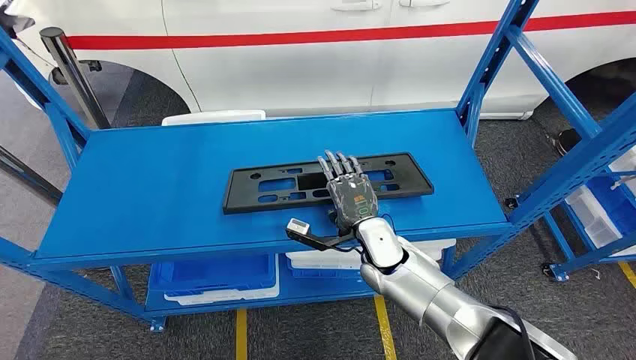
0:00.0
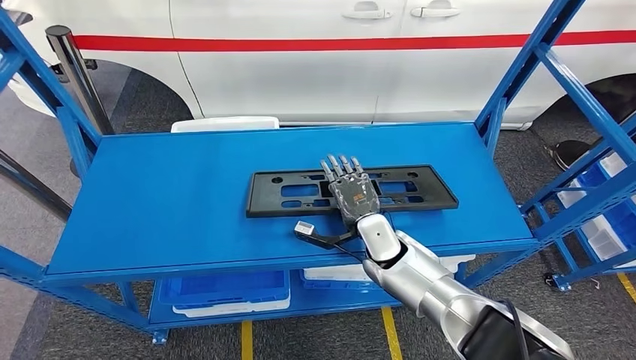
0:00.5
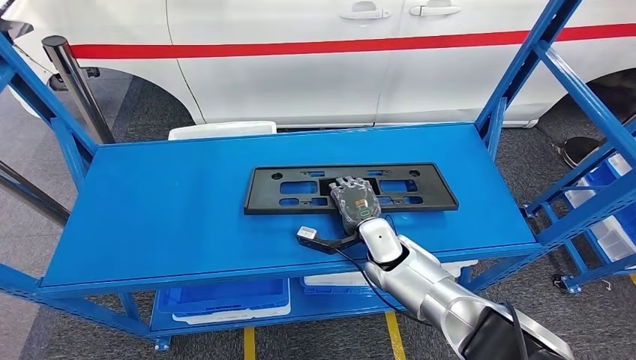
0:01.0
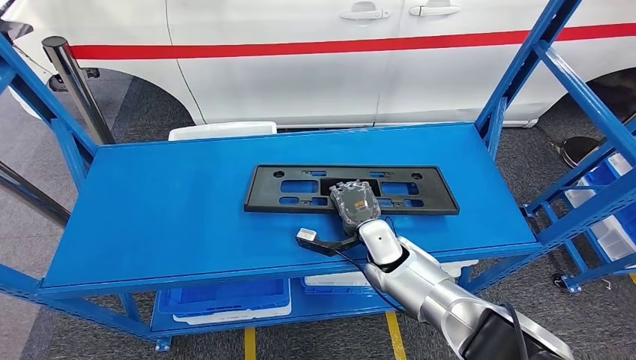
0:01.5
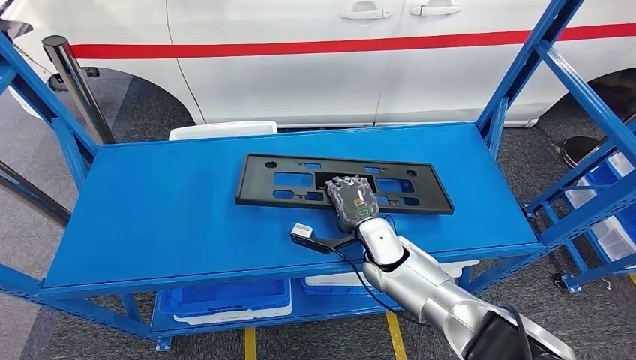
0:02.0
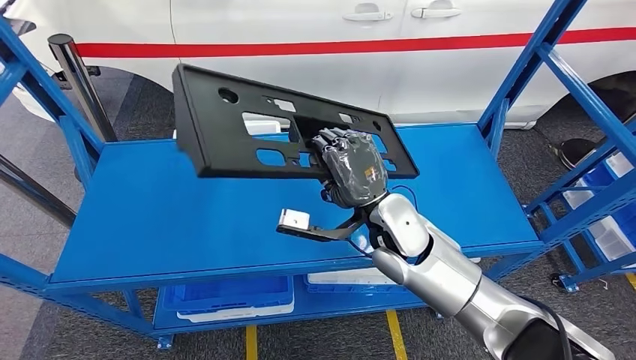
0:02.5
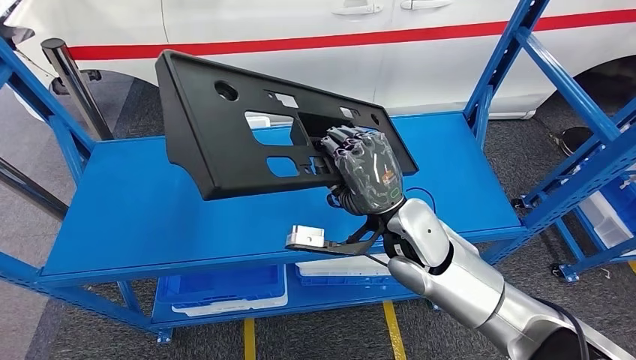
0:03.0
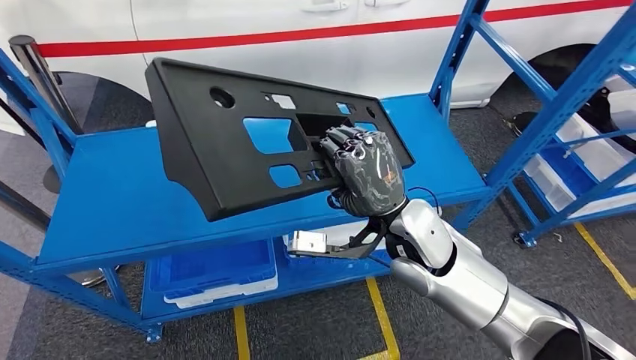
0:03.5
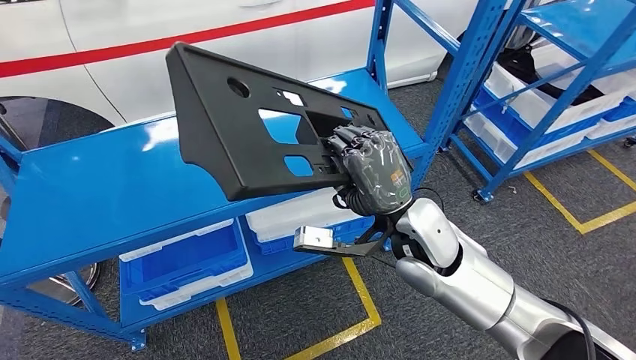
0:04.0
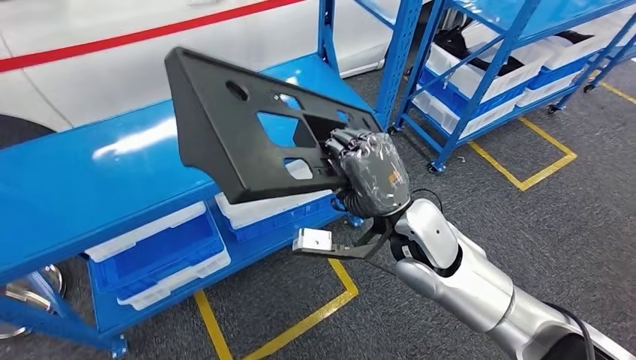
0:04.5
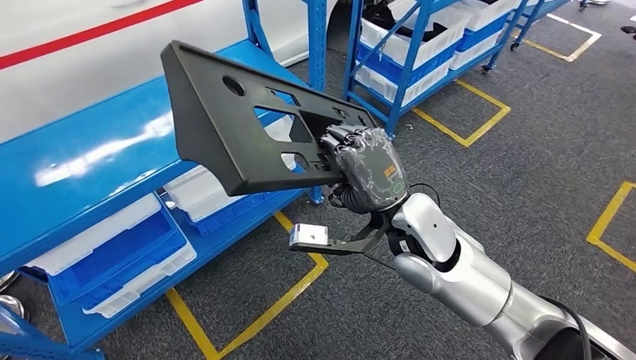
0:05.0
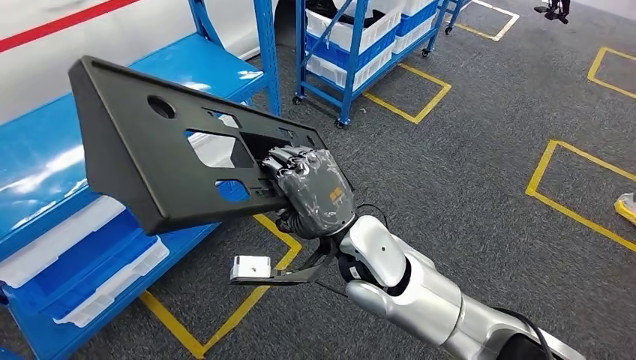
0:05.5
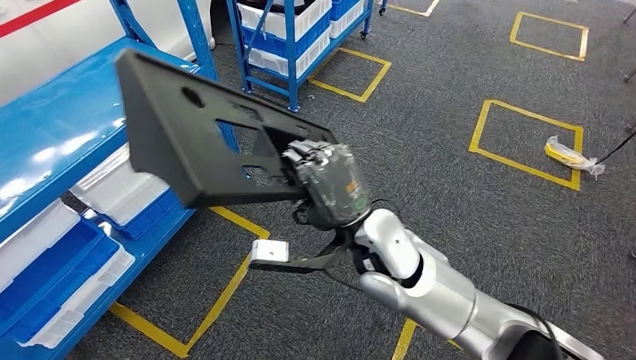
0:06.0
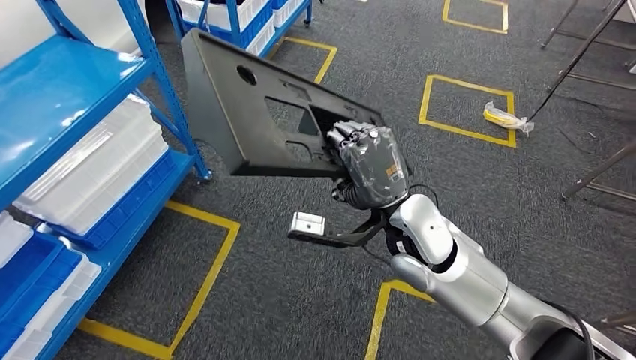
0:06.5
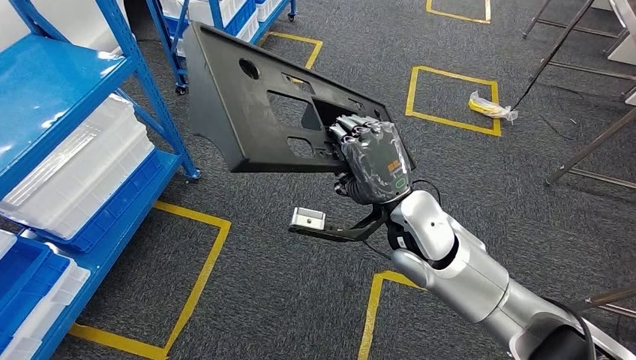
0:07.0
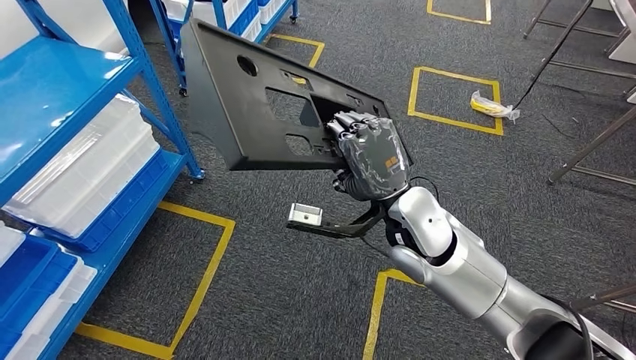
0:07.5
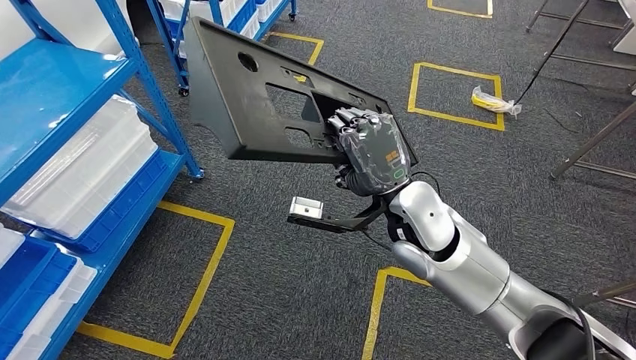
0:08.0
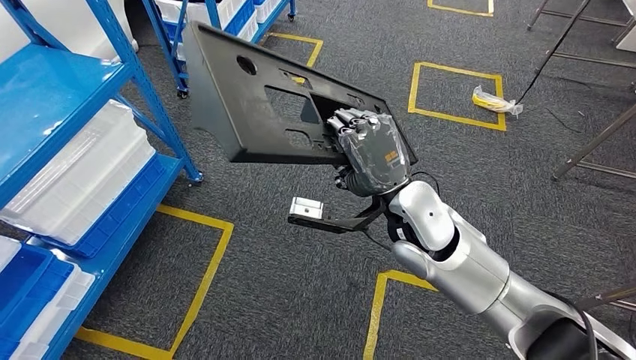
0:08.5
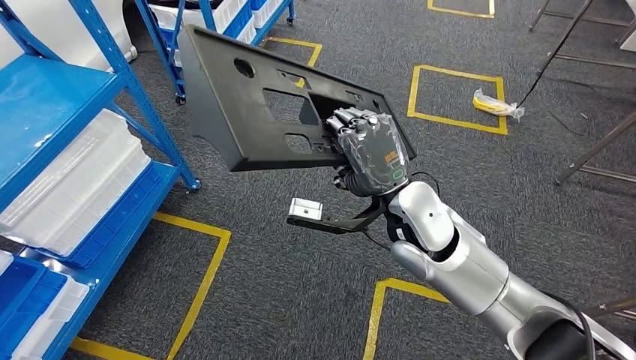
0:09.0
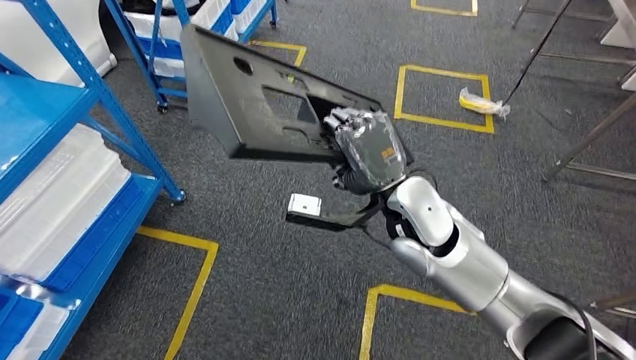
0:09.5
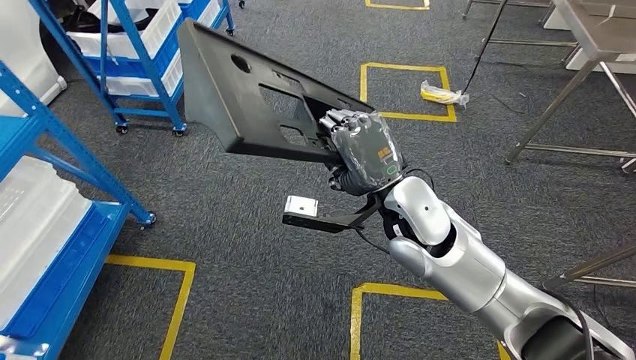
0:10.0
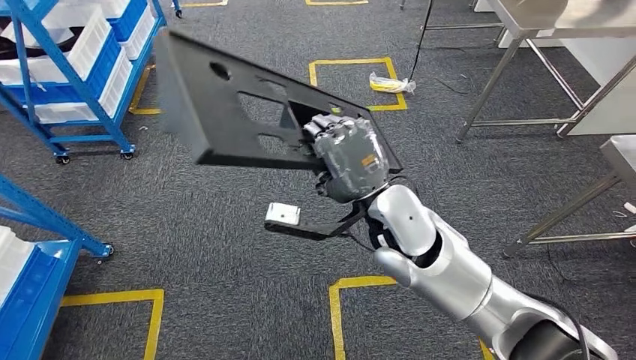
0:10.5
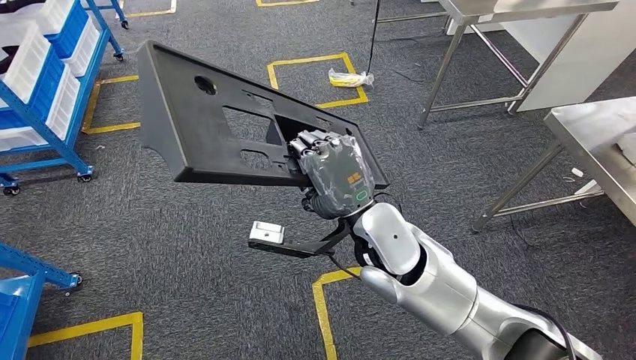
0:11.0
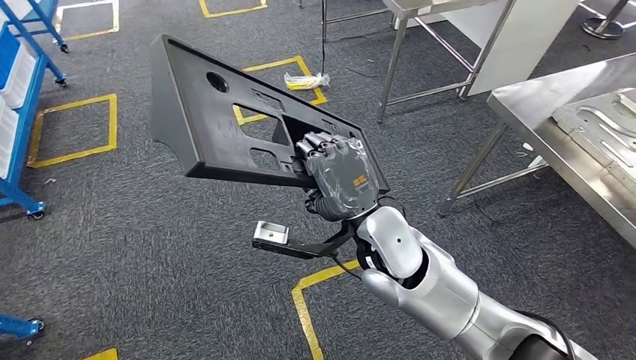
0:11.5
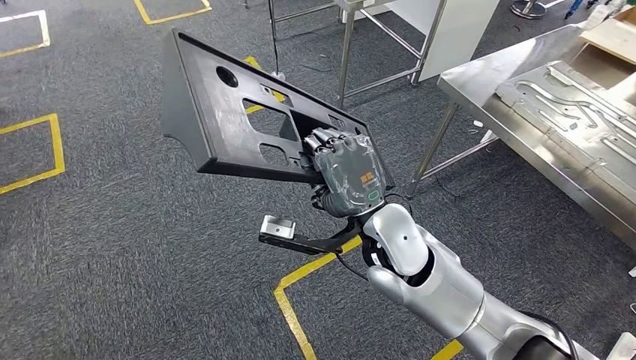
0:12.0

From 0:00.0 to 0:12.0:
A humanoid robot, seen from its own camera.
Step, from 0:00.0 to 0:03.0: Pick up the large material from the shelf.

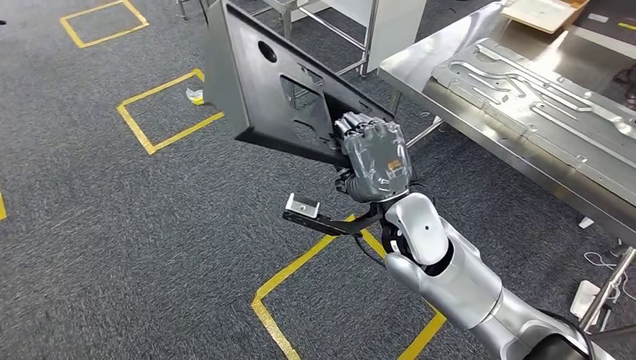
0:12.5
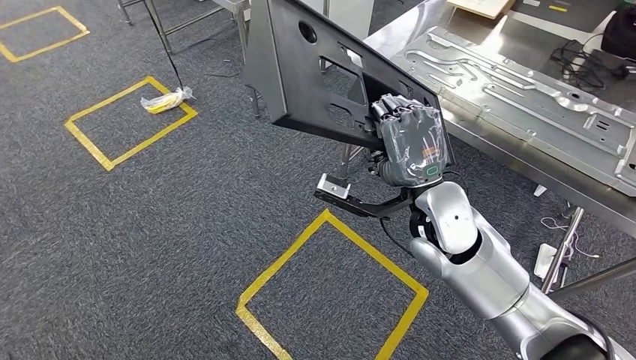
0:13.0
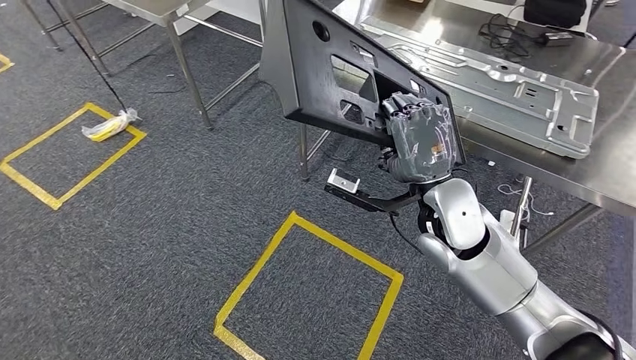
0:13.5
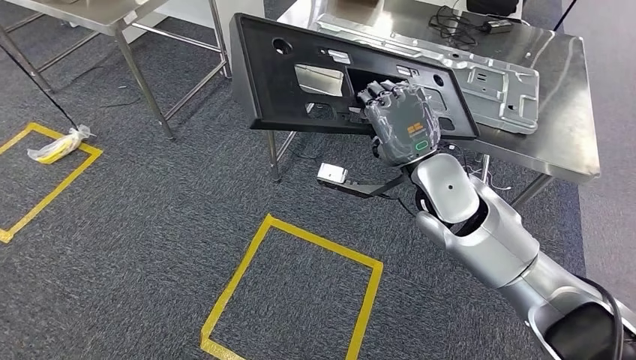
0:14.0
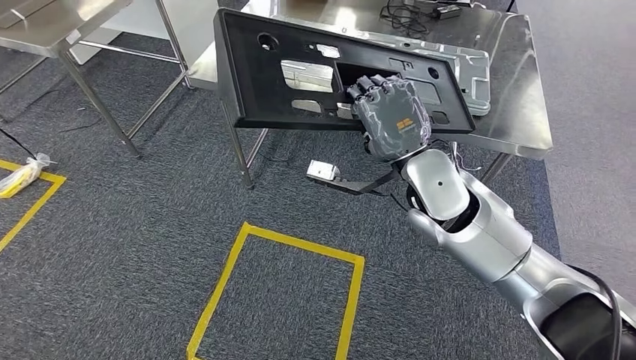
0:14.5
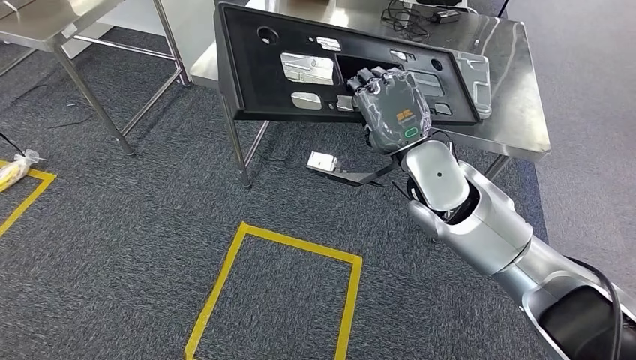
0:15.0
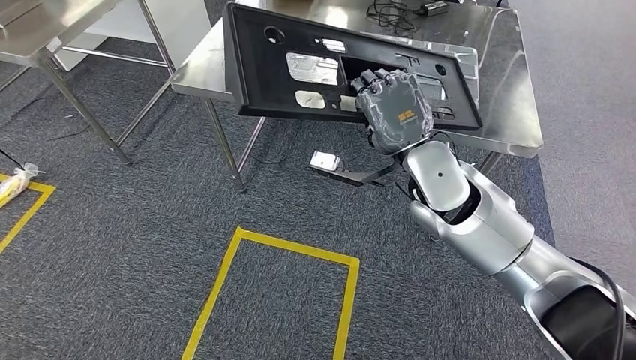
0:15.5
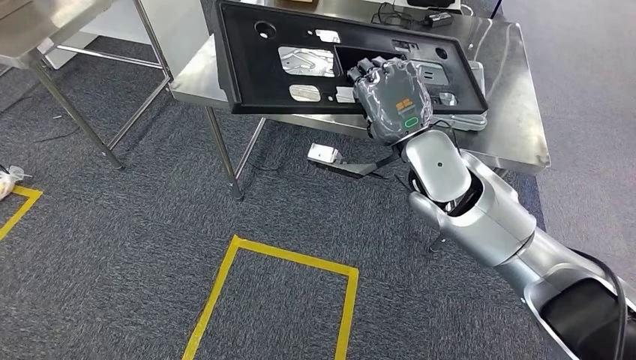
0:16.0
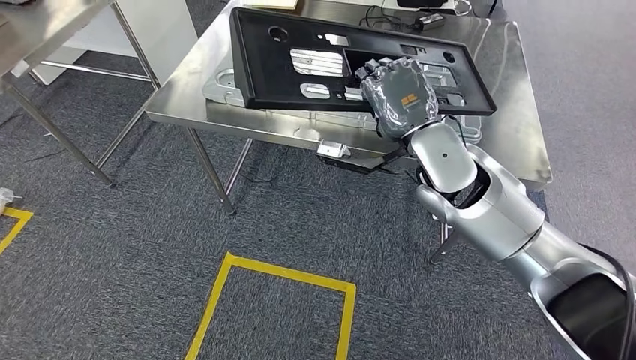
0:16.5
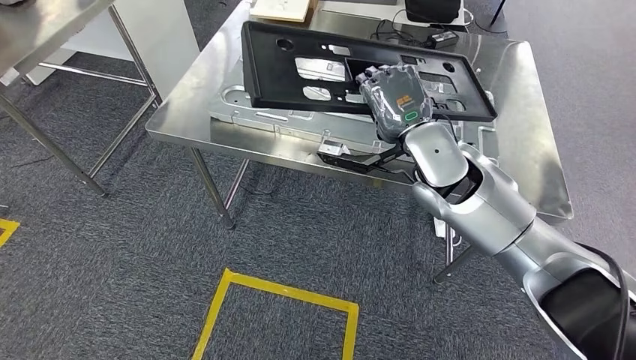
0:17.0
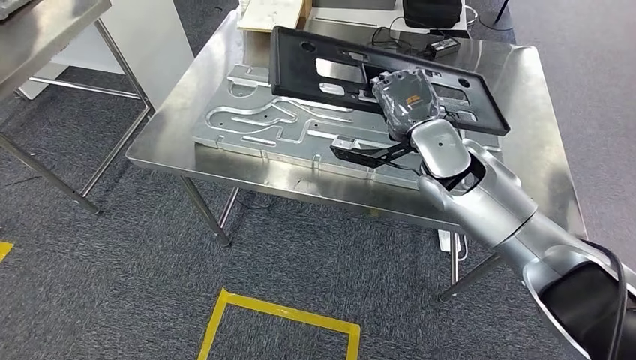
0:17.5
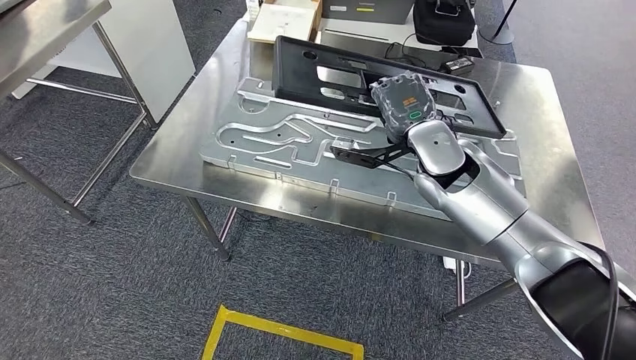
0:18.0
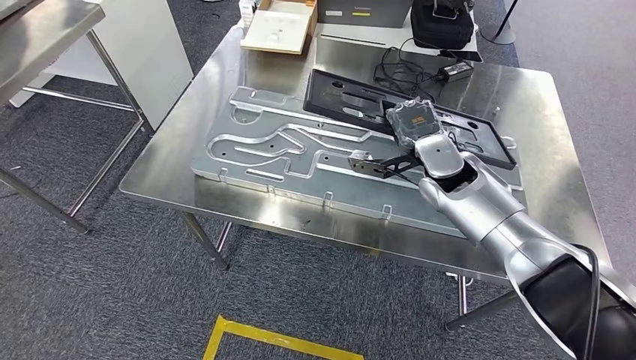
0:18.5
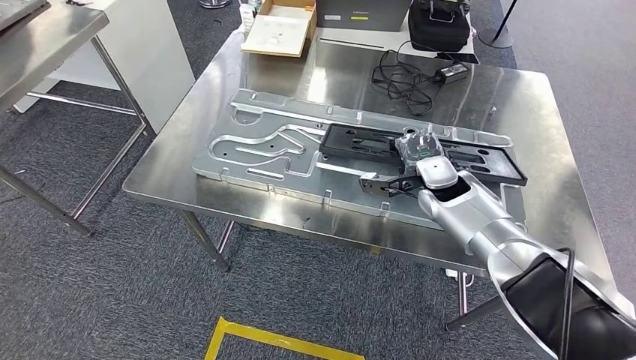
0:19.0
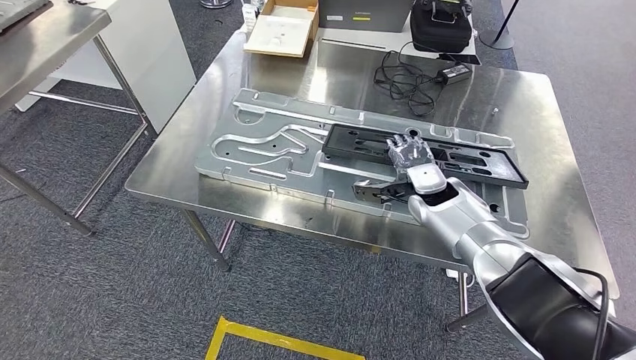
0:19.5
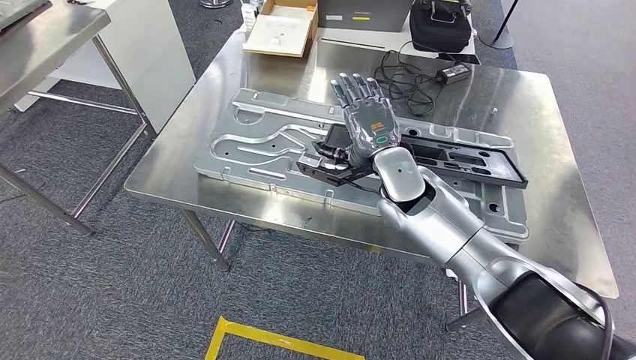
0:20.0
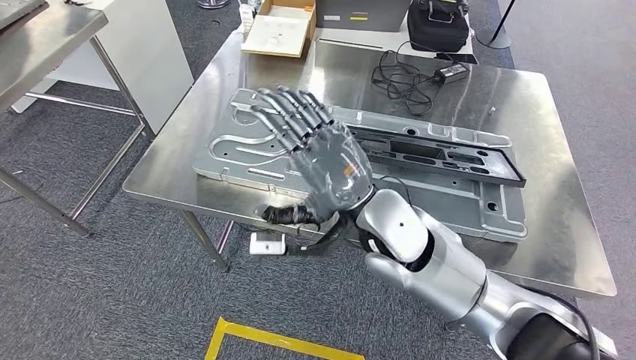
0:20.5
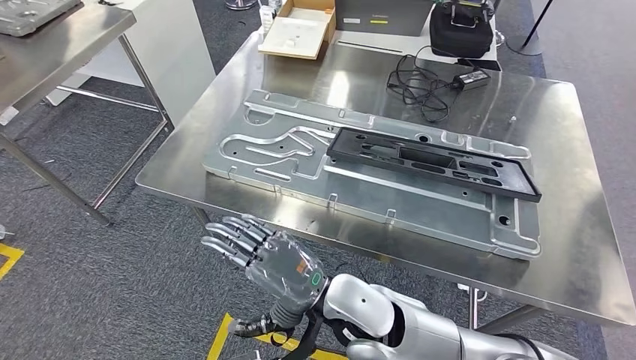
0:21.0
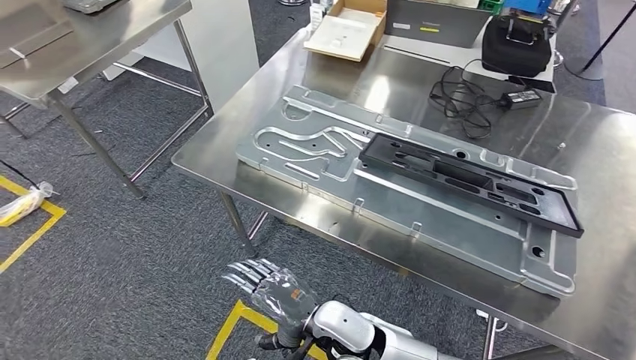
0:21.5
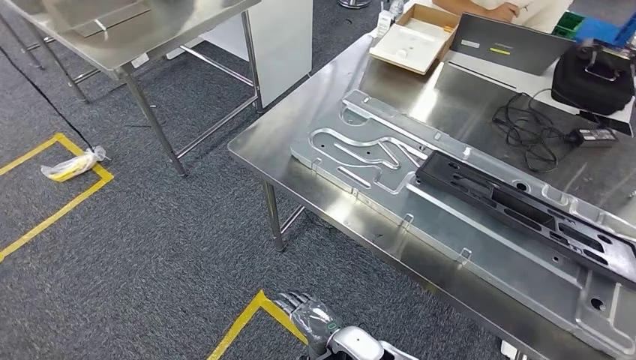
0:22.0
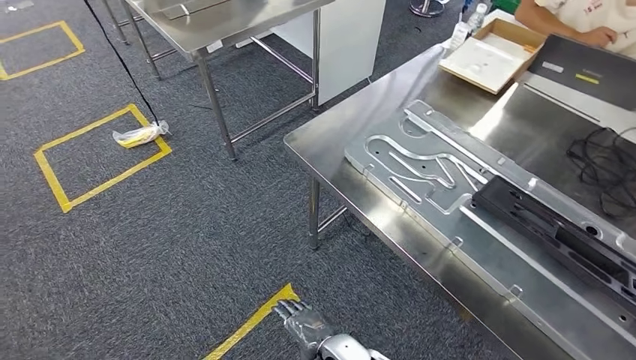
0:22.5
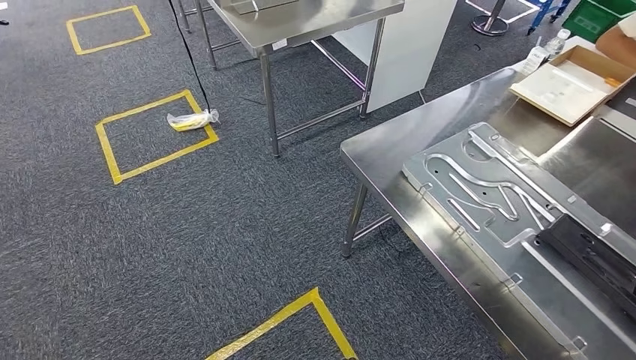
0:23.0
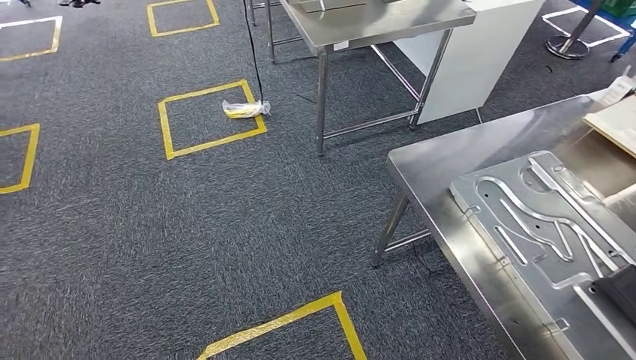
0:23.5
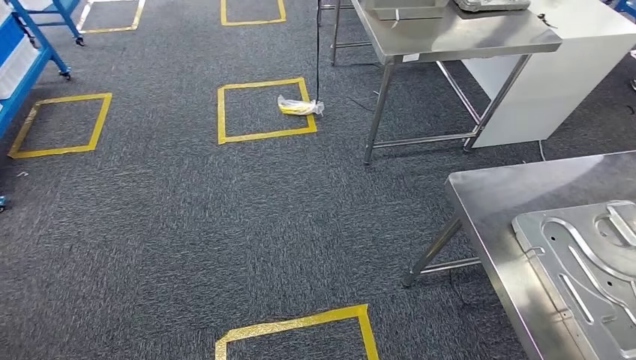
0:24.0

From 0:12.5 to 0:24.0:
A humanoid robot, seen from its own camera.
Step, from 0:12.5 to 0:15.5: Move the large material to the workbench.
Step, from 0:18.0 to 0:22.0: Insert the large material into the corresponding slot on the workbench.
